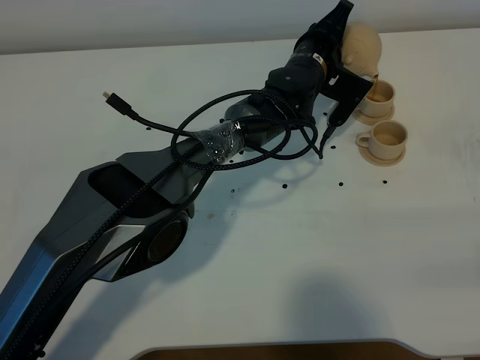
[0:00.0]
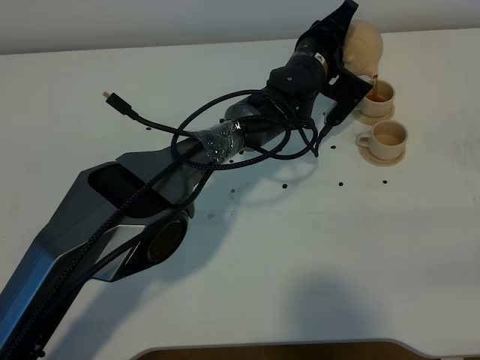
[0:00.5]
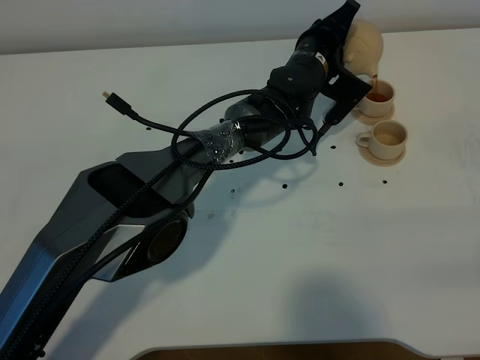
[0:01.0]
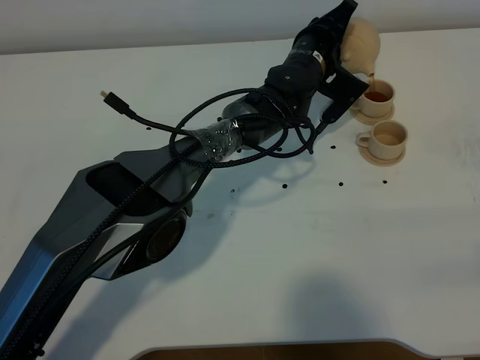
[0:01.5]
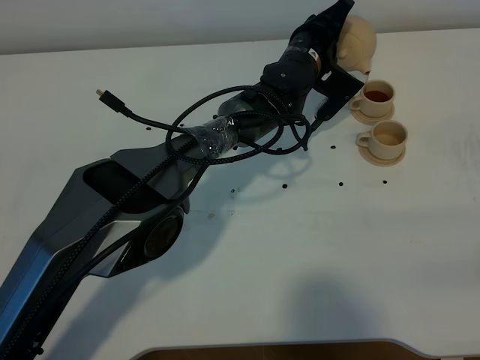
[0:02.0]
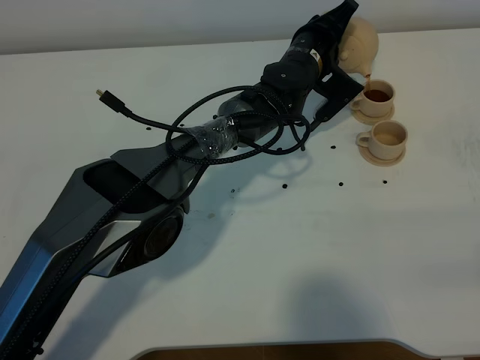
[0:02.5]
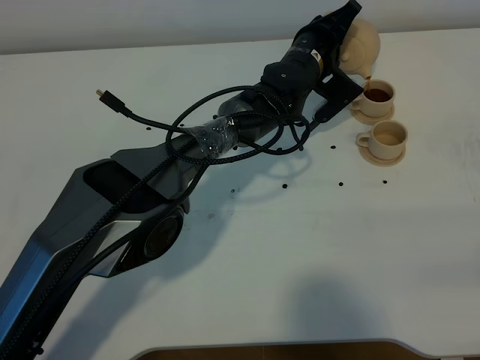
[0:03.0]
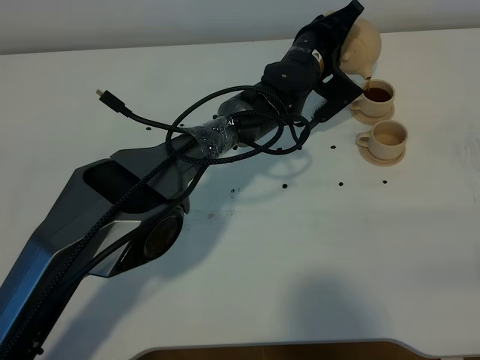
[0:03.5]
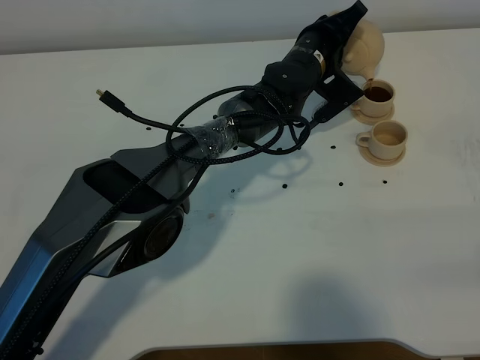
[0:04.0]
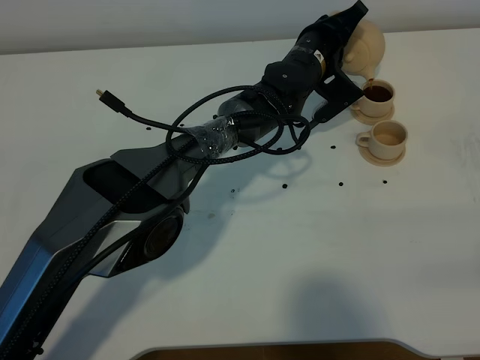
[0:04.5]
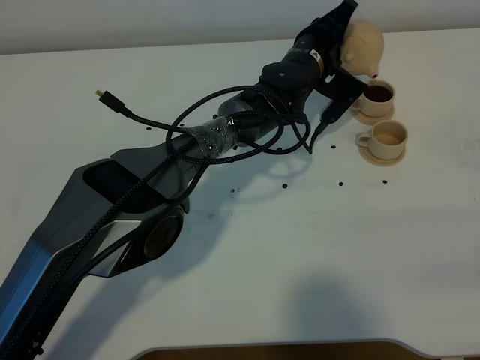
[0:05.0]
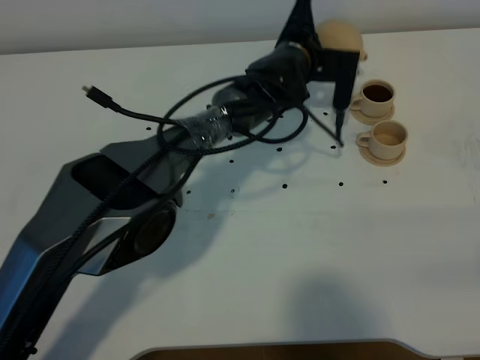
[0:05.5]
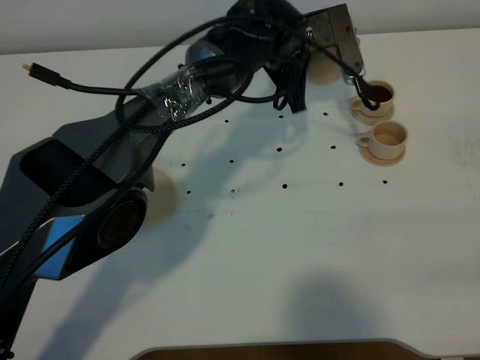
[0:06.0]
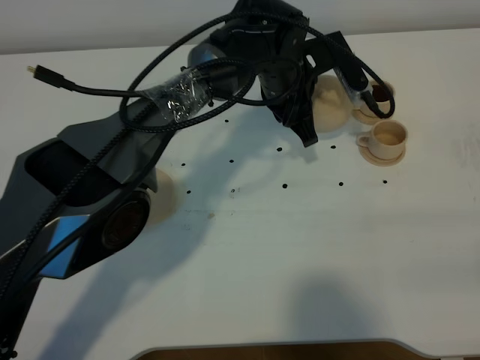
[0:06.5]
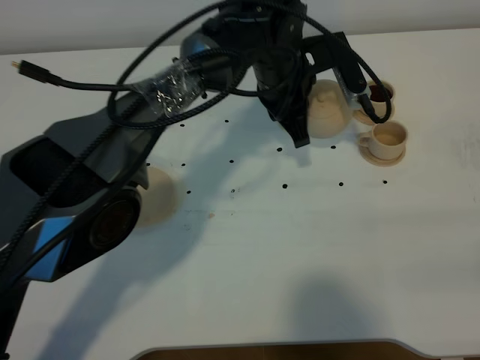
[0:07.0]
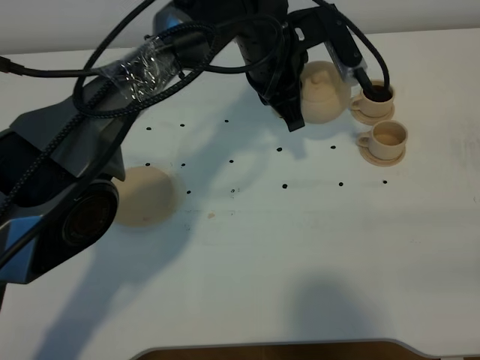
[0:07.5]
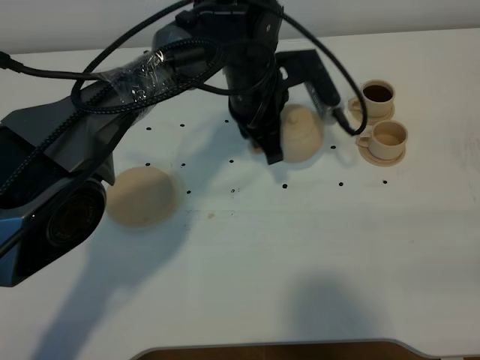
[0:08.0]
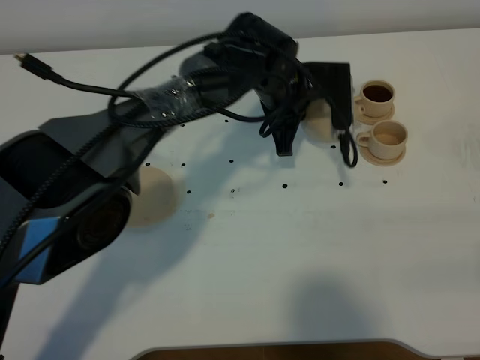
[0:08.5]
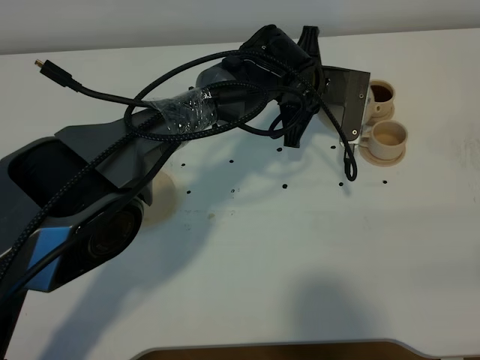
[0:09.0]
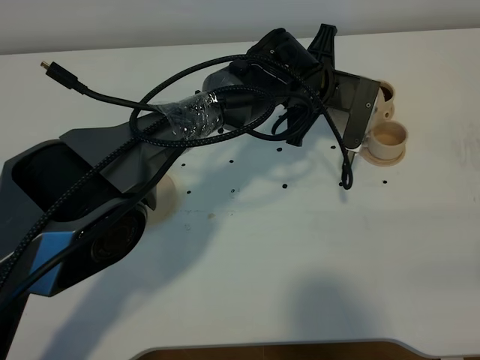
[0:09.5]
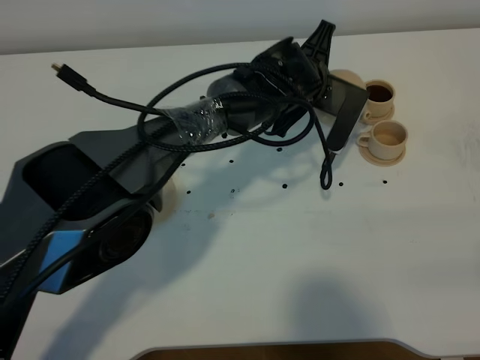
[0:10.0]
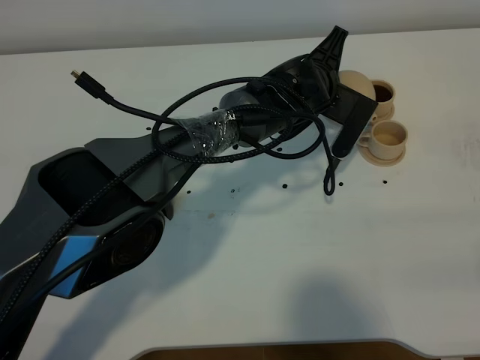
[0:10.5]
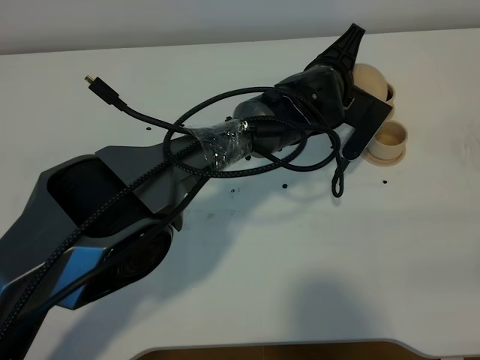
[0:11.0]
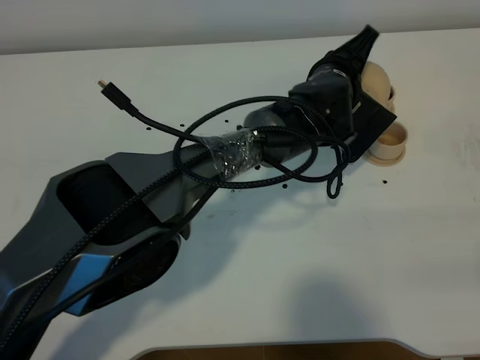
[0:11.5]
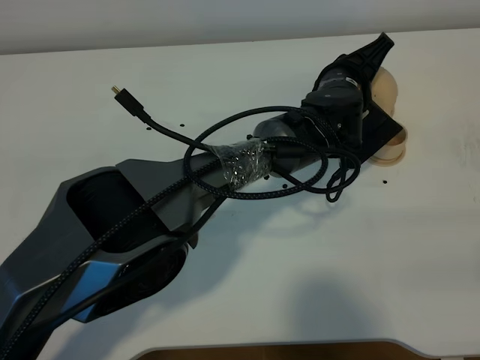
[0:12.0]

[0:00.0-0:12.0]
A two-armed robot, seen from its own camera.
Task of the whole recording: grasp the brown teapot and pour the tea into the two brown teacups one by one, put the brown teapot back in its original place.
0:00.0 to 0:04.0: The grippers stay close to where they were, moving slightly.
0:04.0 to 0:06.0: The left gripper goes roughly 5 cm upward.
0:06.0 to 0:08.0: The left gripper changes place by roughly 5 cm.
0:08.0 to 0:10.0: The left gripper shifts roughly 5 cm to the right.
0:10.0 to 0:12.0: The left gripper shifts some 5 cm to the right.

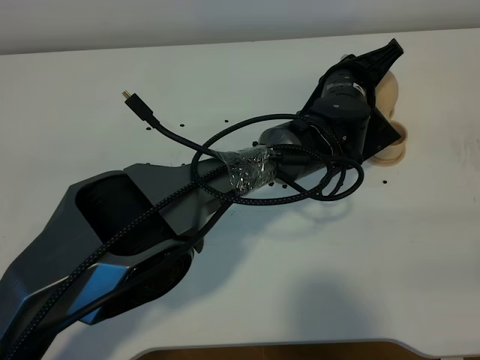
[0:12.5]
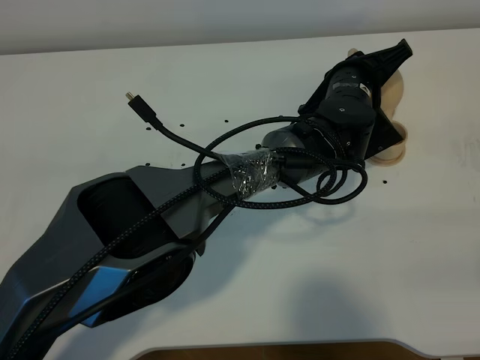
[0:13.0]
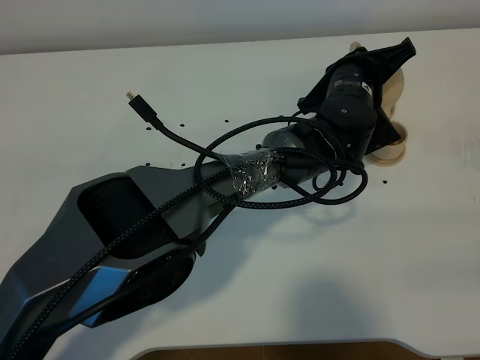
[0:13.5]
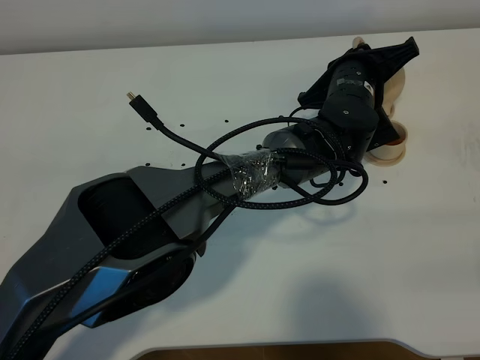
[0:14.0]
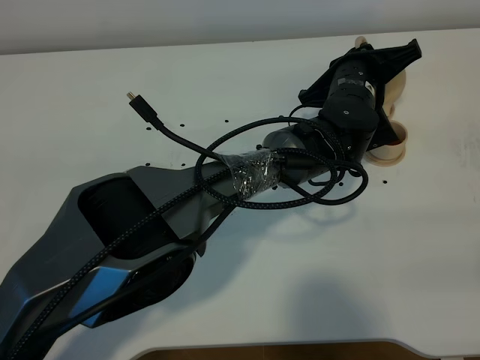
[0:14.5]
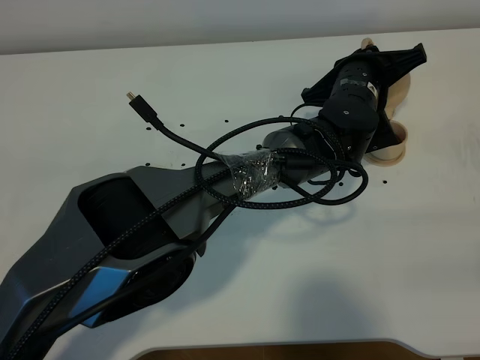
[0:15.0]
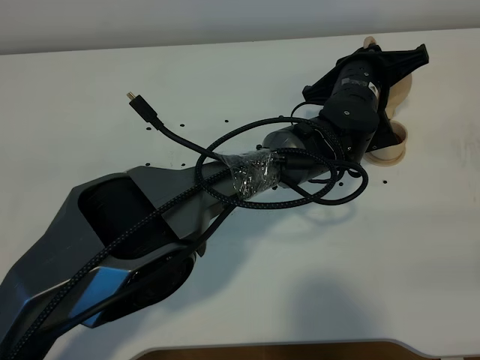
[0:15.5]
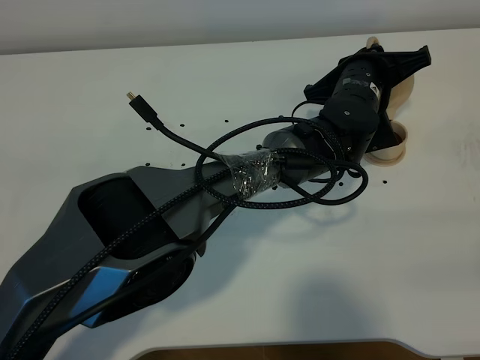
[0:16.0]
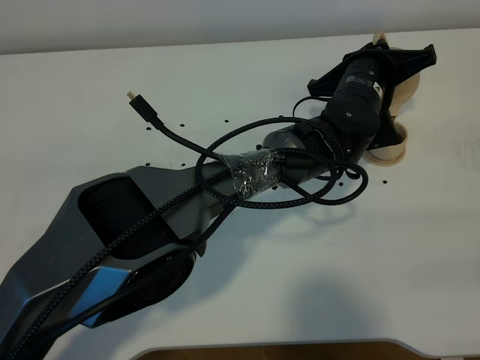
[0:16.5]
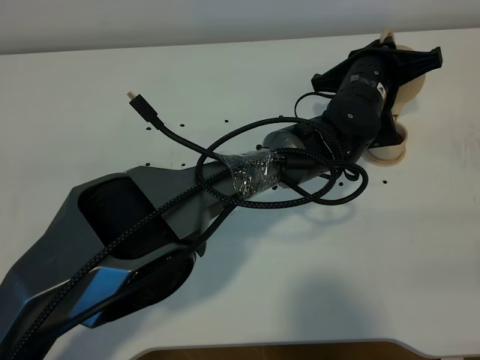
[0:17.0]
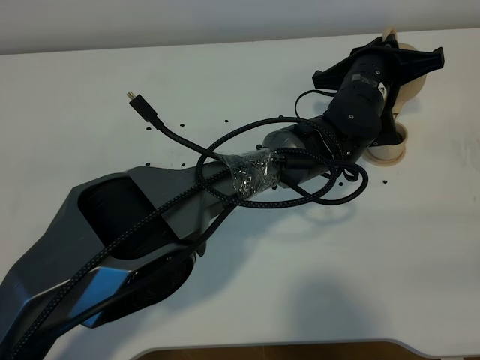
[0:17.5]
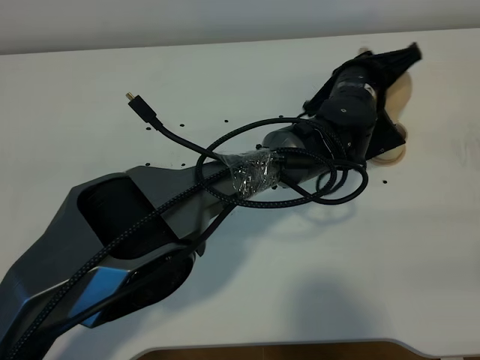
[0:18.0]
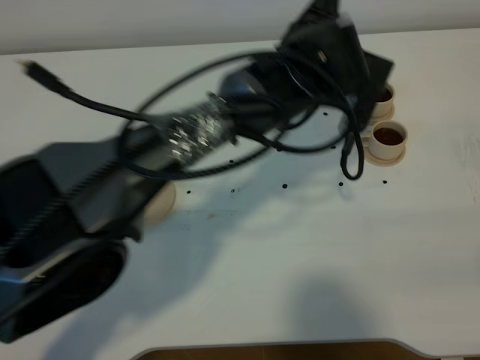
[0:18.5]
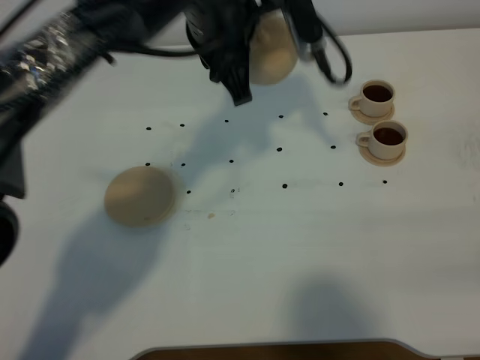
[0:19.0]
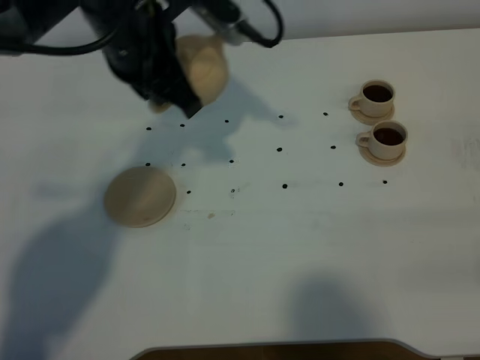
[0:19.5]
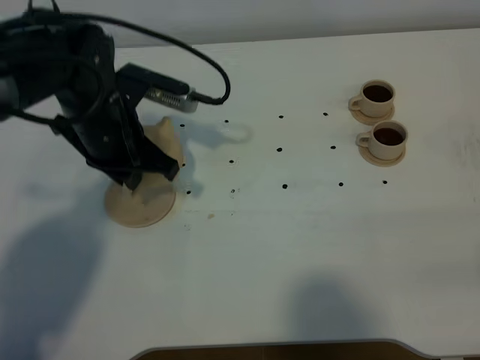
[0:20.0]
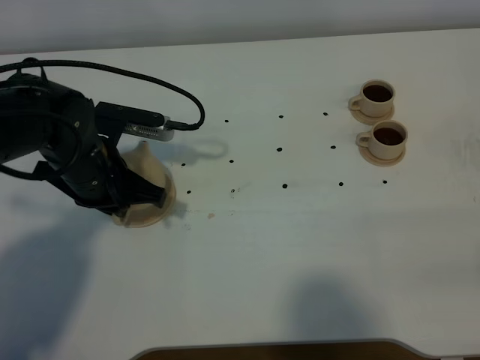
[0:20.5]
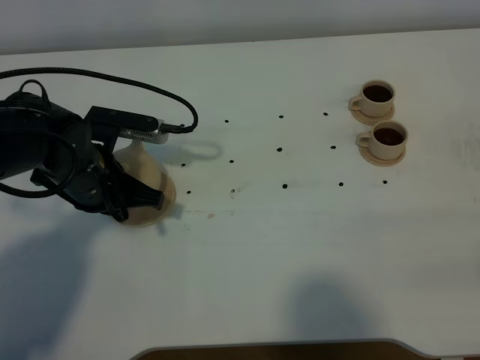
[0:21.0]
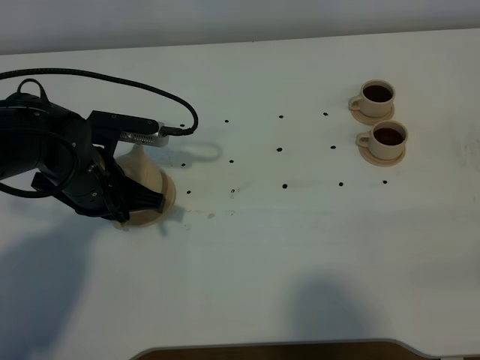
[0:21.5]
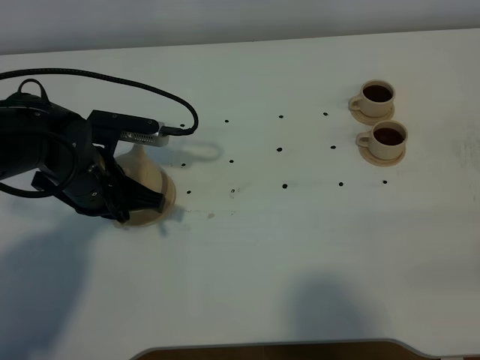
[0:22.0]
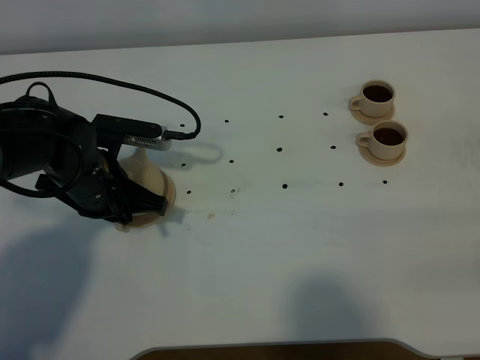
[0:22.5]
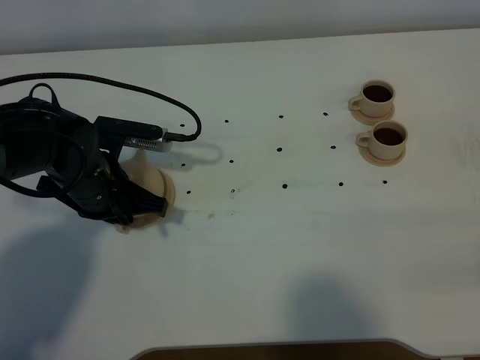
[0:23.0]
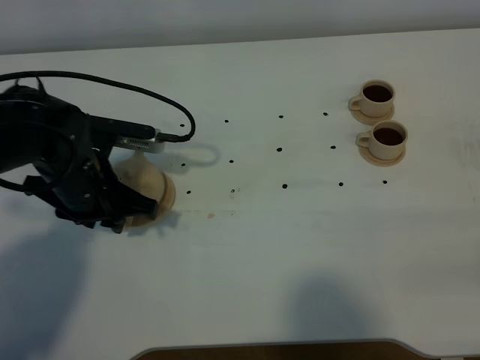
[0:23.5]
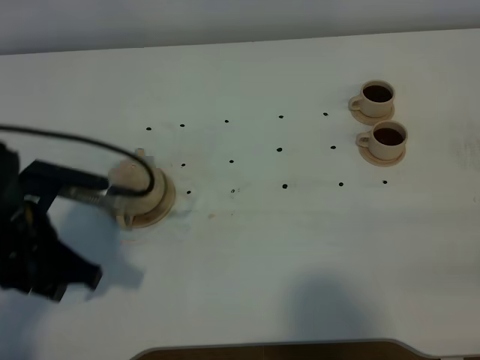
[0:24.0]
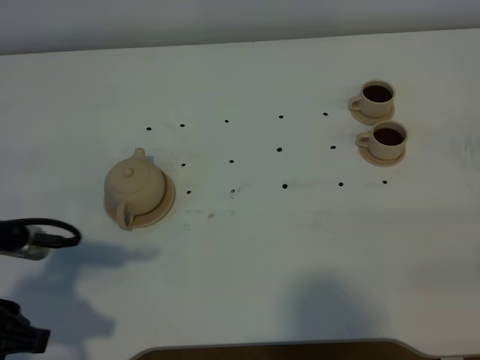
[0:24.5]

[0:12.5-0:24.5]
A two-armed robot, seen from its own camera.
Task of the whole recording: grasp the brown teapot and pour the tea into the two brown teacups one by one, put the brown teapot back in its original place.
Step, 0:12.5 to 0:18.0: Pour tea into the teacup with the left gripper.
0:12.5 to 0:14.5: The grippers move only a little.
0:14.5 to 0:16.5: The grippers stay close to where they were, moving slightly.
0:16.5 to 0:18.5: The left gripper moves upward and to the left, some 10 cm.
0:18.5 to 0:20.5: The left gripper moves to the left, about 25 cm.
0:20.5 to 0:22.5: The grippers stay close to where they were, moving slightly.
0:22.5 to 0:24.5: The left gripper is displaced backward and upward by approximately 20 cm, and opens its fingers.

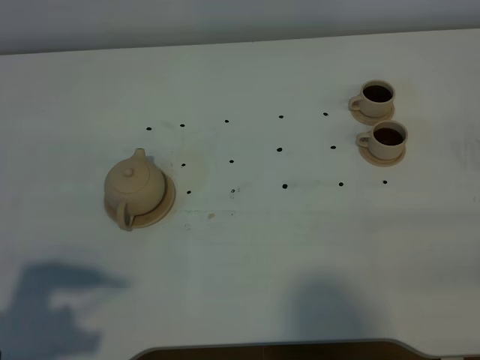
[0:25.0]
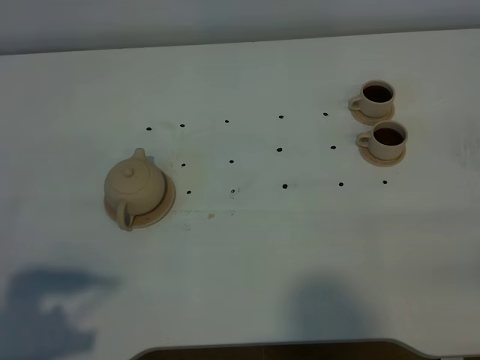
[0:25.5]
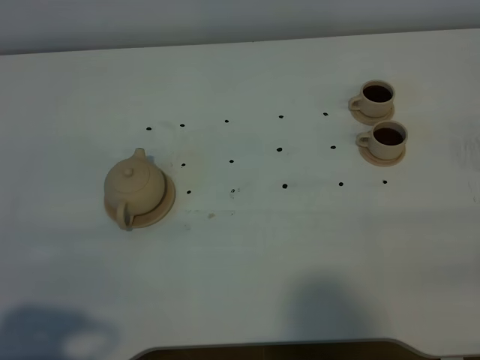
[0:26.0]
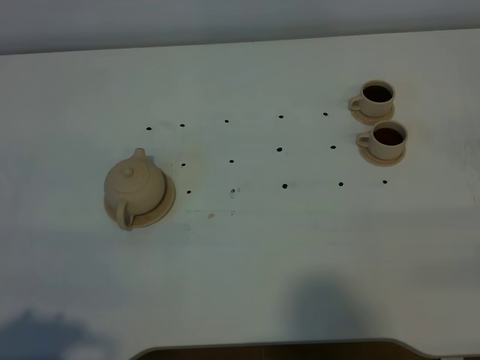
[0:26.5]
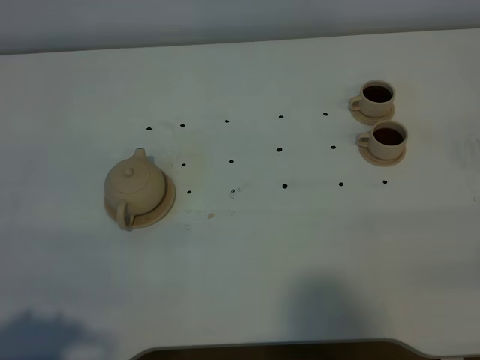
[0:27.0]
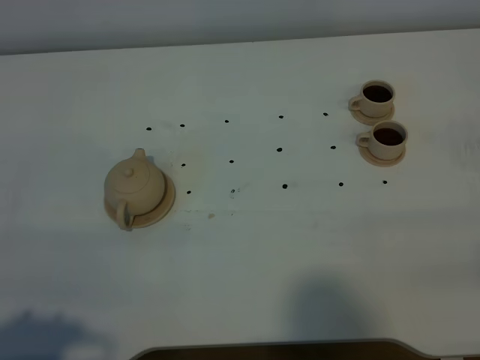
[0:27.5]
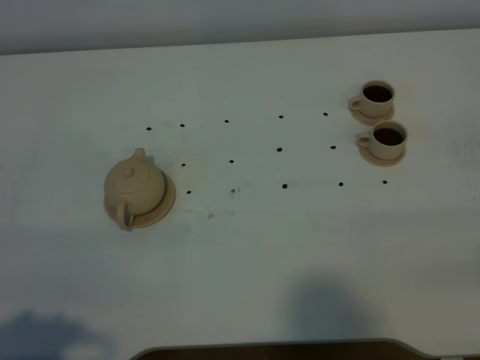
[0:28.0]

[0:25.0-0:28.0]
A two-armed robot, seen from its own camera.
Task of the whole recording: grasp the brown teapot and pour the tea into the two brown teacups one by one, put the brown teapot back in its original place.
0:25.0 to 0:26.5: The left gripper shifts about 5 cm backward.
0:26.5 to 0:28.0: The two grippers keep their place.
